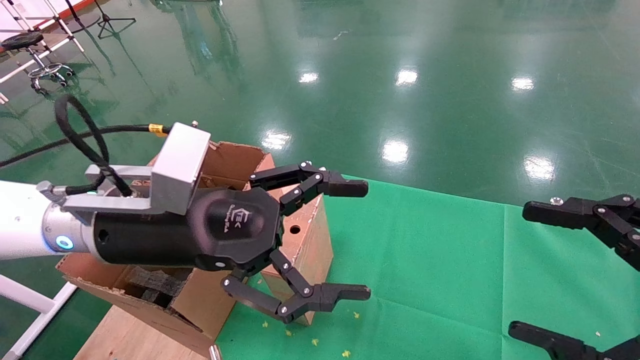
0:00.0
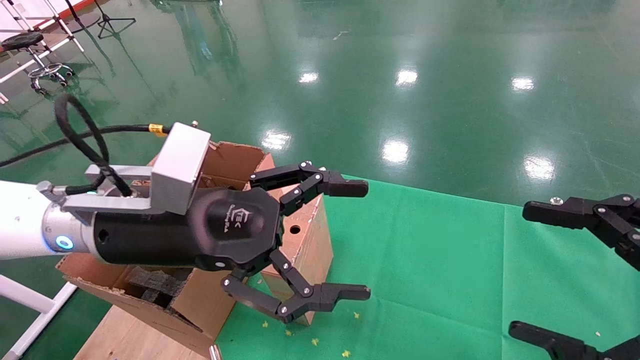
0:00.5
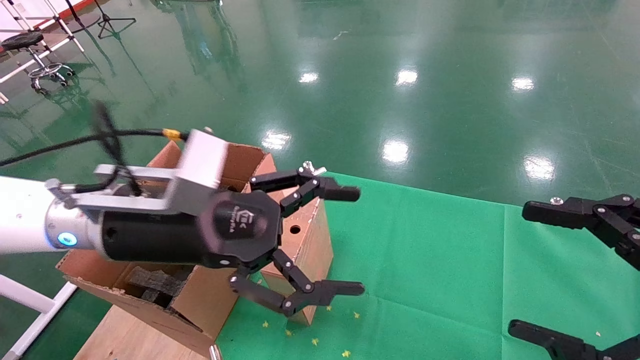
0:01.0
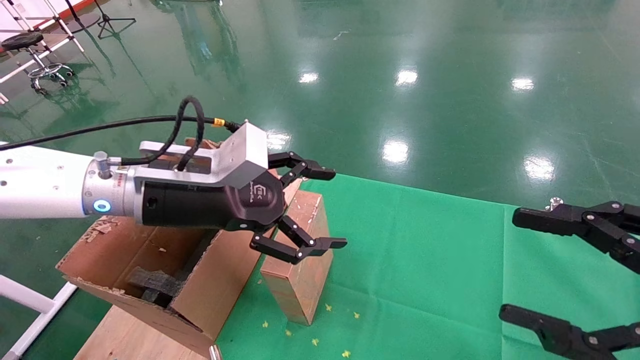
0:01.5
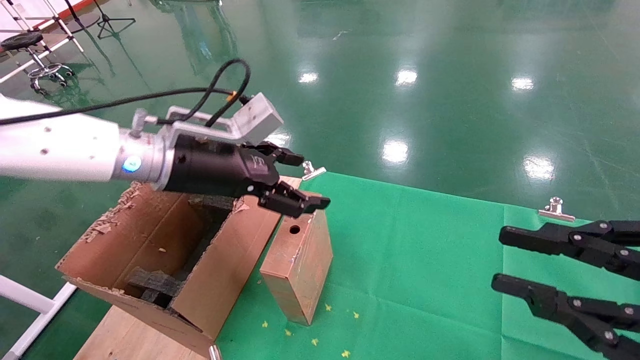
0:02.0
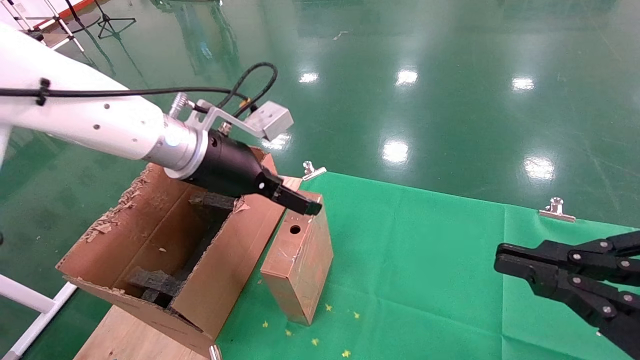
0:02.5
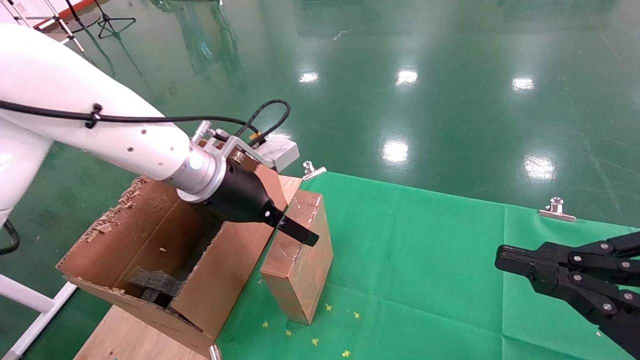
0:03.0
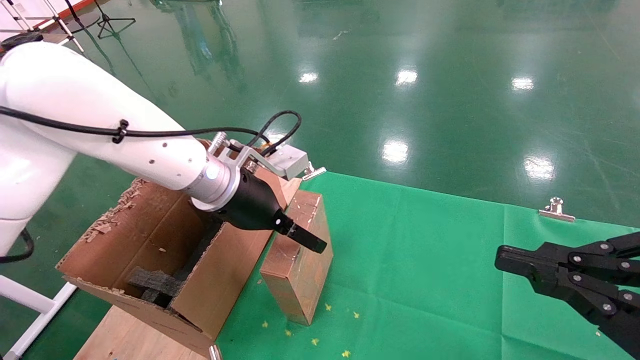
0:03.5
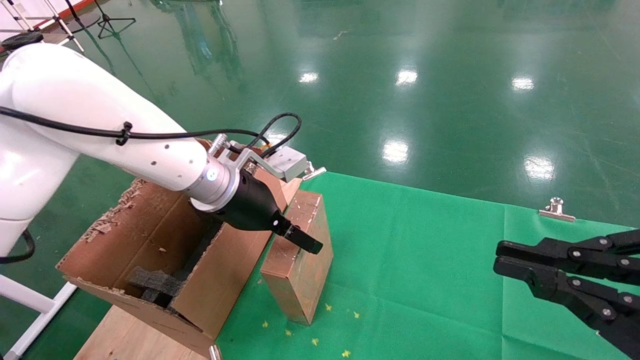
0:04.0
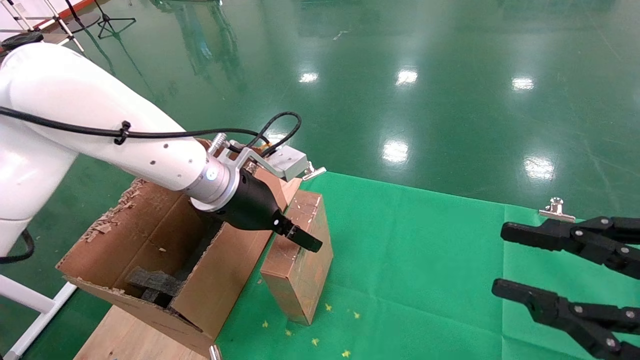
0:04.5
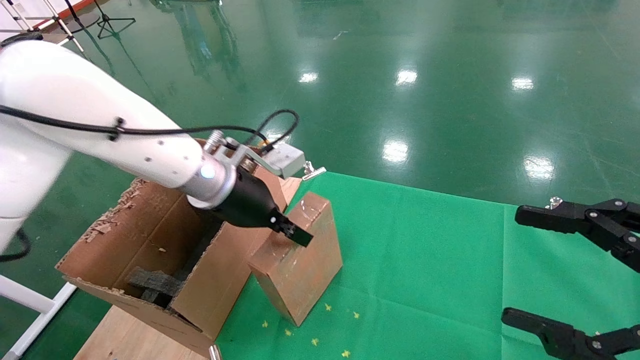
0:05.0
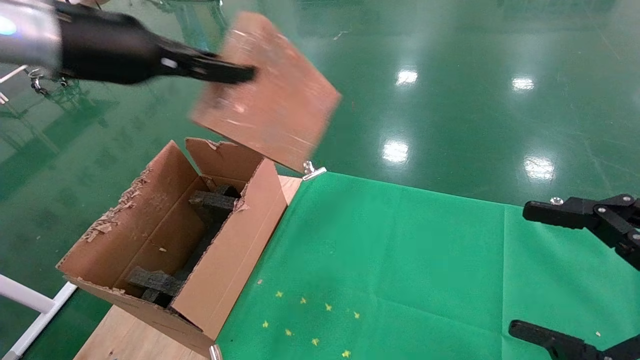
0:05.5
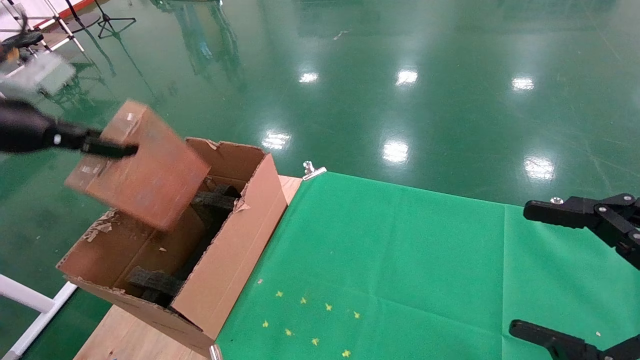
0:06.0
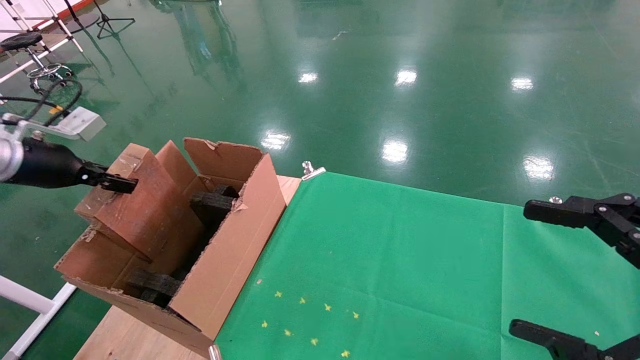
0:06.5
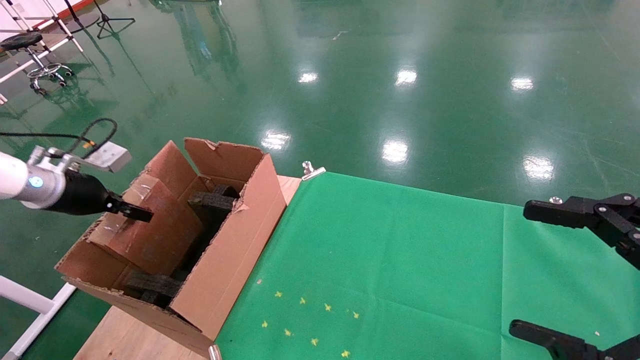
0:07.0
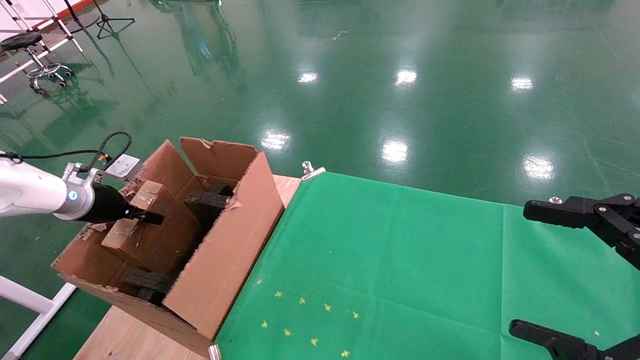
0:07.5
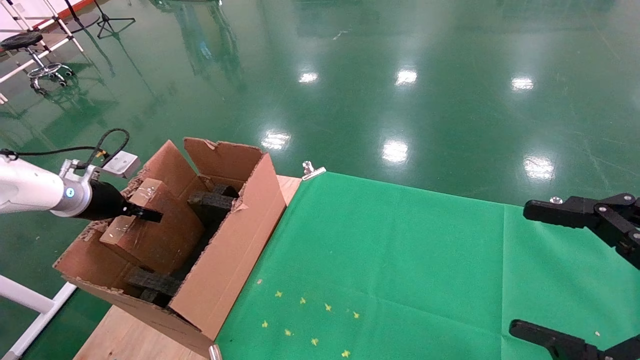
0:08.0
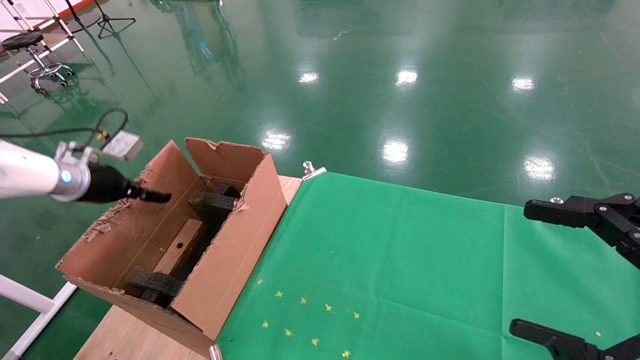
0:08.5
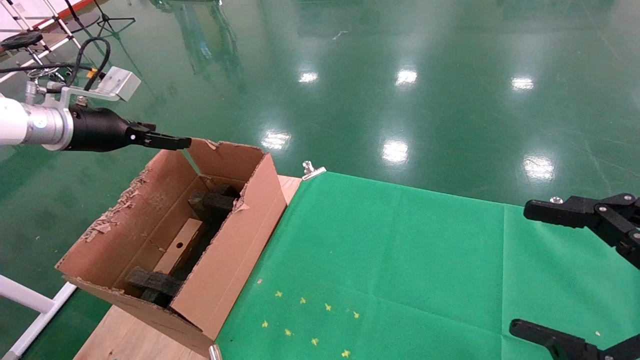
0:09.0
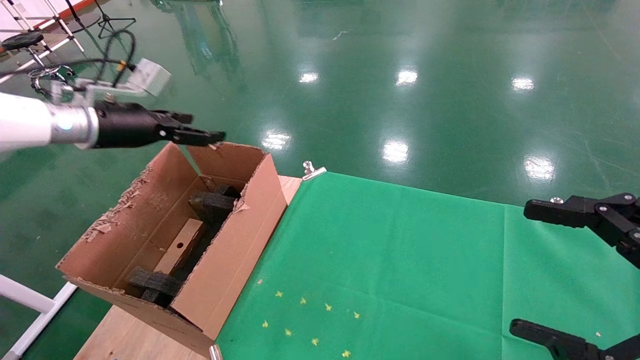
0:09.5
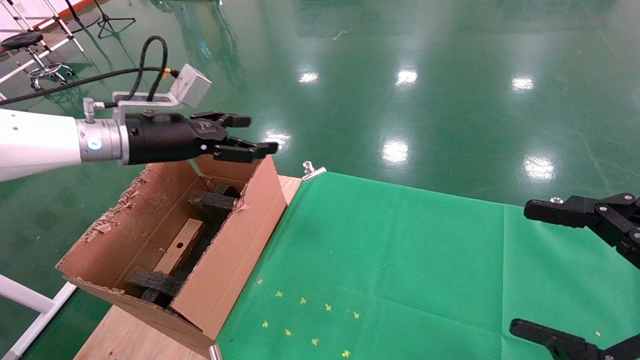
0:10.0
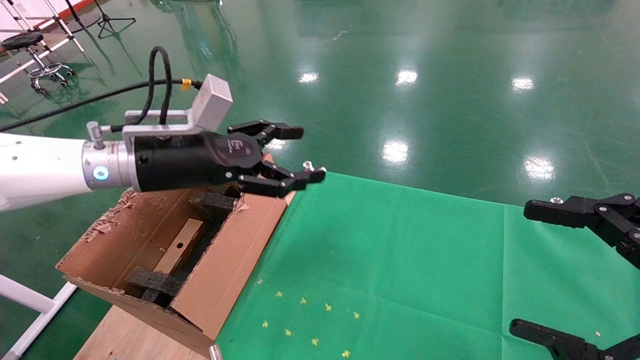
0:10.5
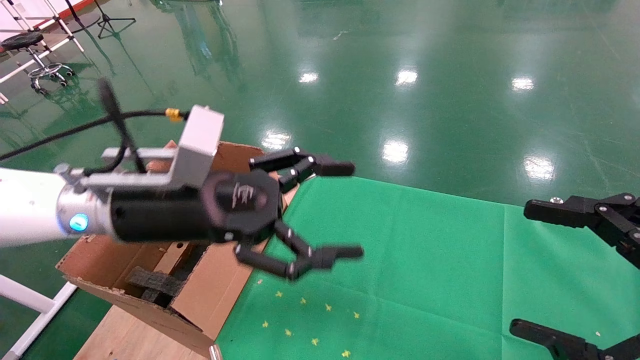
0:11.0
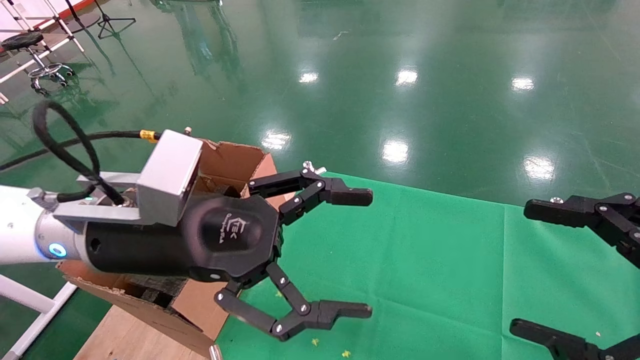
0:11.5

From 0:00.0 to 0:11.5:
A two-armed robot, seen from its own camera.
Task of the whole recording: using a robotic arm to pick up a cardboard box and palace it the carton.
Step, from 0:01.5 to 0:05.0: Pick up the mouse and the power cord paper box.
Step, from 0:05.5 to 0:08.0: Place the mouse and the power cord paper box into the container.
From 0:00.0 to 0:02.0: The right gripper closes. The left gripper goes roughly 10 cm forward.
From 0:02.0 to 0:04.0: The right gripper closes up. The left gripper ends up about 5 cm from where it was.
From 0:04.0 to 0:06.0: The left gripper heads to the left, covering about 30 cm, and closes. The right gripper opens its fingers.
From 0:06.0 to 0:07.5: The left gripper moves downward and forward, about 20 cm.
From 0:07.5 to 0:09.5: The left gripper goes about 15 cm upward and to the right, and opens.
From 0:09.5 to 0:11.5: The left gripper heads to the right and backward, covering about 25 cm.

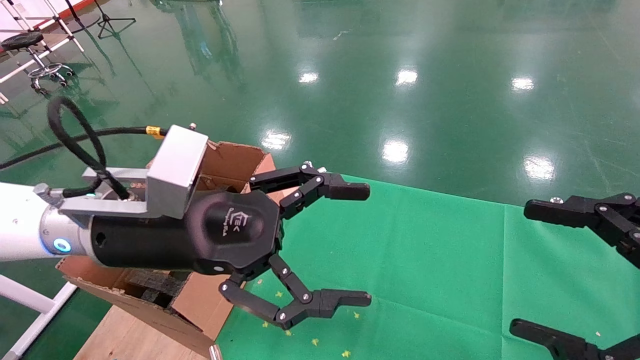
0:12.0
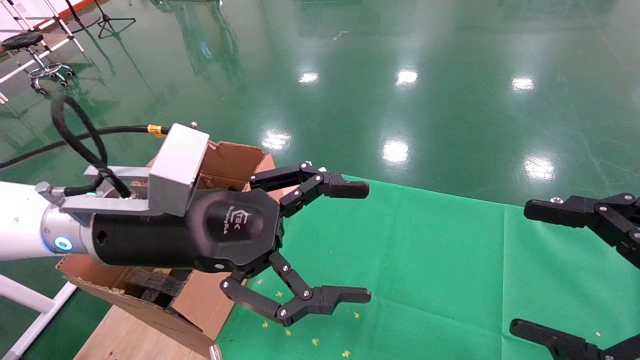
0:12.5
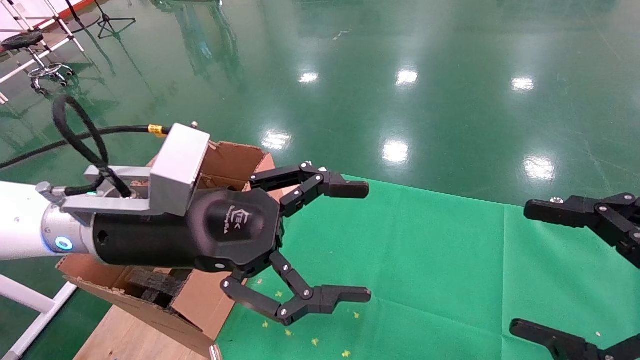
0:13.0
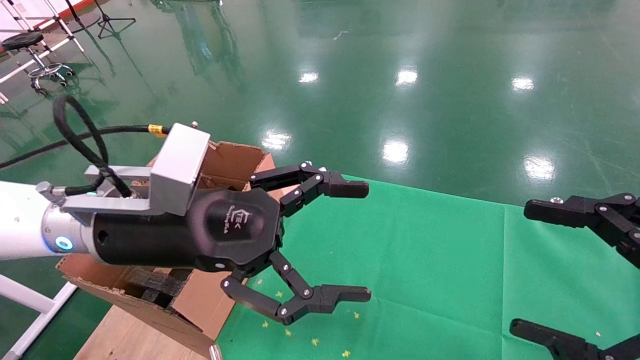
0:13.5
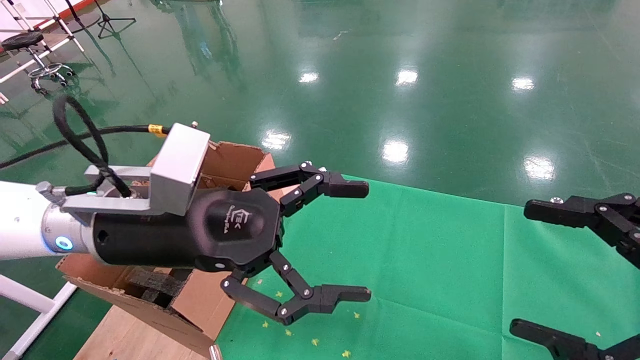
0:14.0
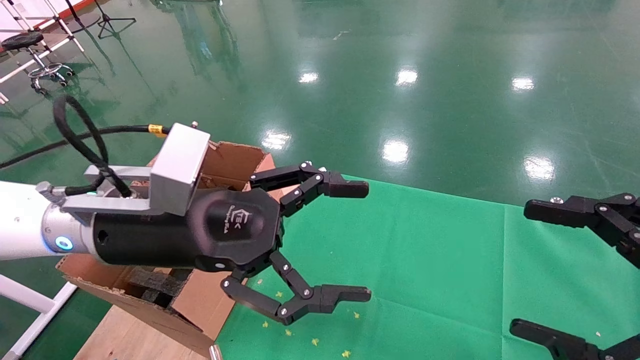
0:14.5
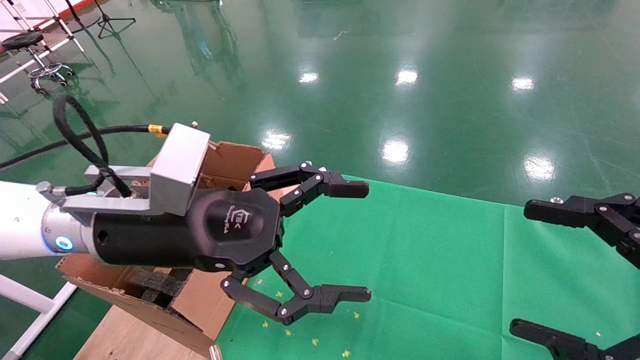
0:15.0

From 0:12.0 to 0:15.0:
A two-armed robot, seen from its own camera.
Task of the whole recording: using a robotic arm to pick up a cardboard box and palace it the carton.
From 0:12.0 to 0:15.0: Both grippers stay about where they are.
